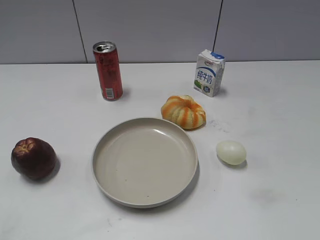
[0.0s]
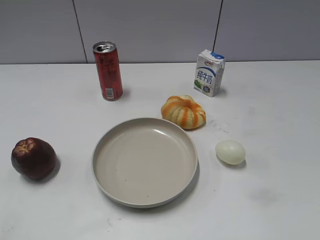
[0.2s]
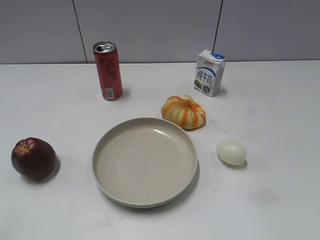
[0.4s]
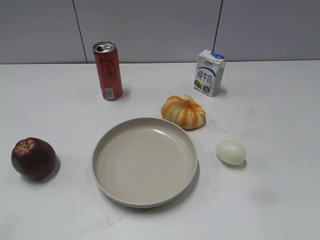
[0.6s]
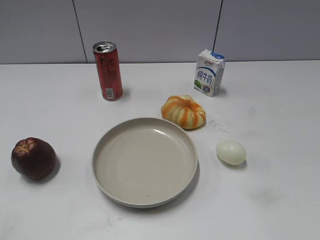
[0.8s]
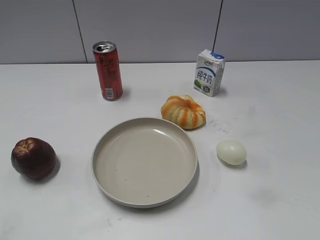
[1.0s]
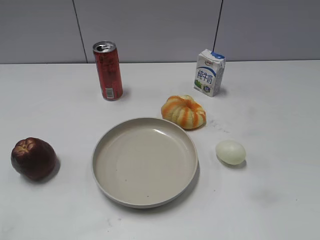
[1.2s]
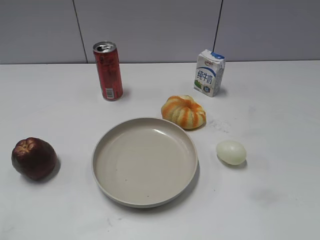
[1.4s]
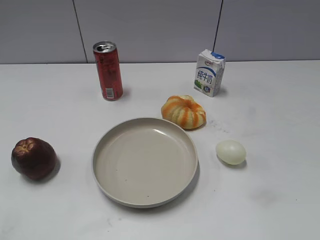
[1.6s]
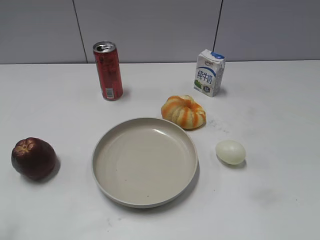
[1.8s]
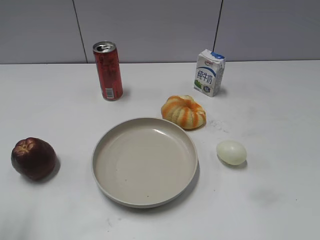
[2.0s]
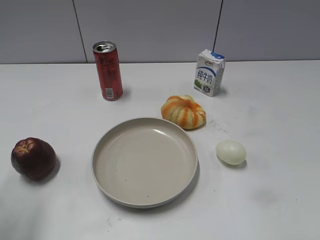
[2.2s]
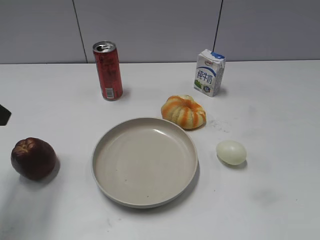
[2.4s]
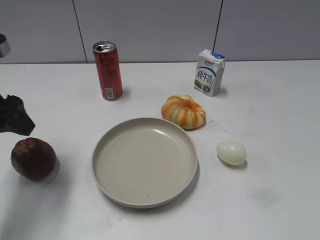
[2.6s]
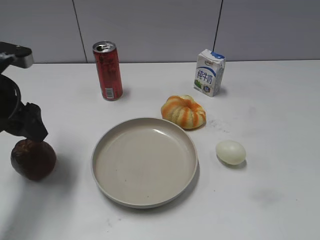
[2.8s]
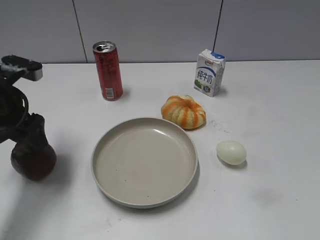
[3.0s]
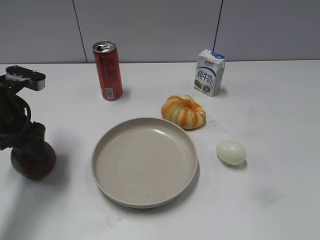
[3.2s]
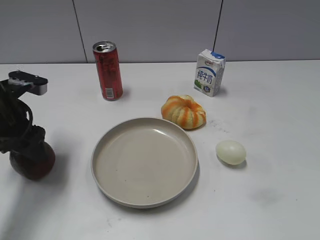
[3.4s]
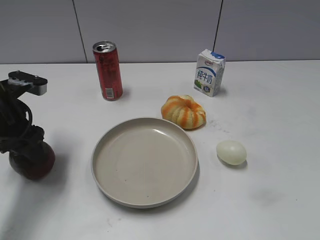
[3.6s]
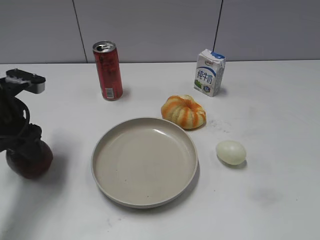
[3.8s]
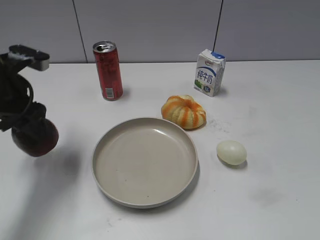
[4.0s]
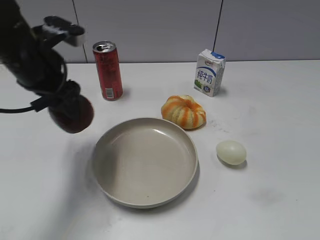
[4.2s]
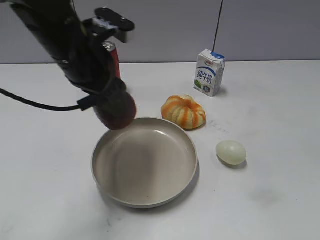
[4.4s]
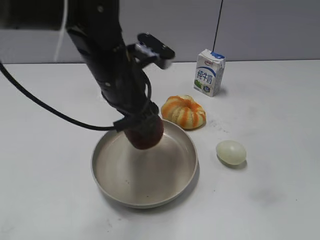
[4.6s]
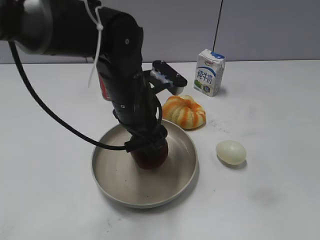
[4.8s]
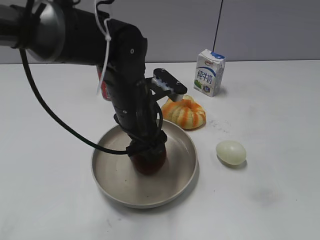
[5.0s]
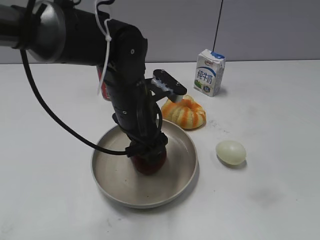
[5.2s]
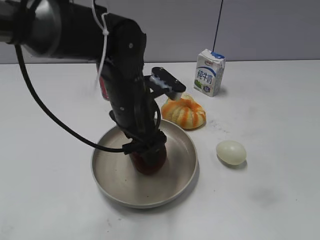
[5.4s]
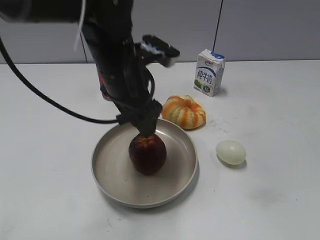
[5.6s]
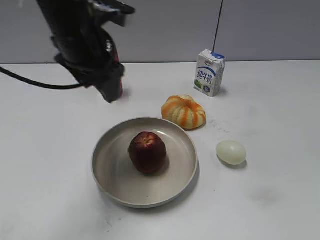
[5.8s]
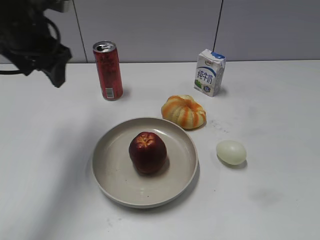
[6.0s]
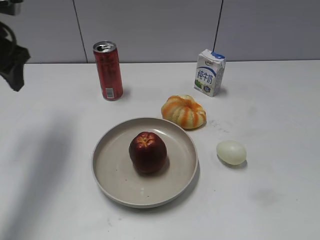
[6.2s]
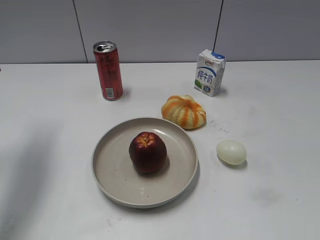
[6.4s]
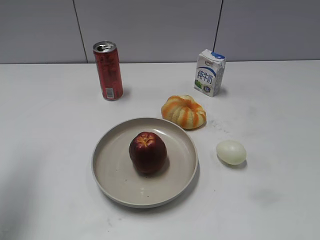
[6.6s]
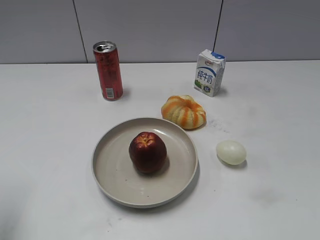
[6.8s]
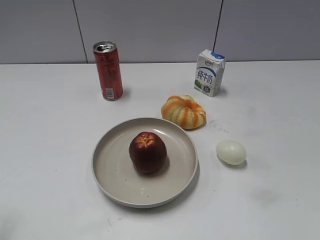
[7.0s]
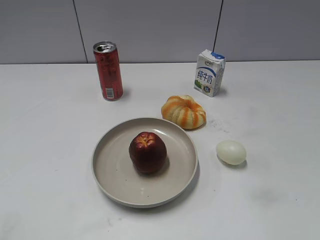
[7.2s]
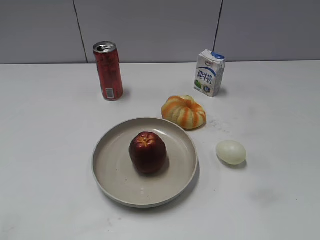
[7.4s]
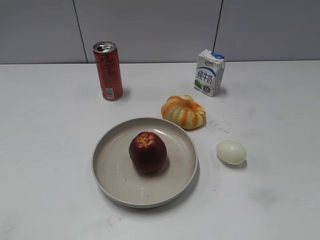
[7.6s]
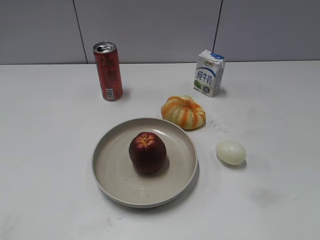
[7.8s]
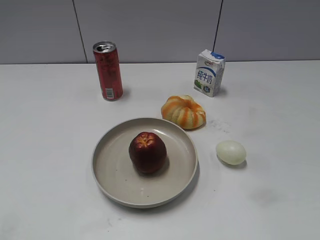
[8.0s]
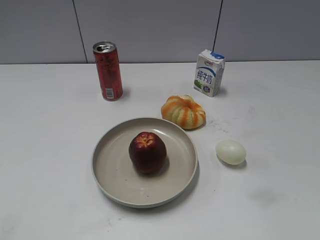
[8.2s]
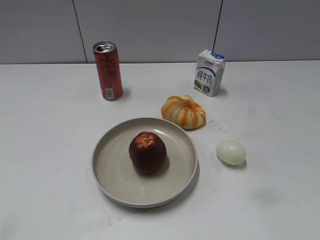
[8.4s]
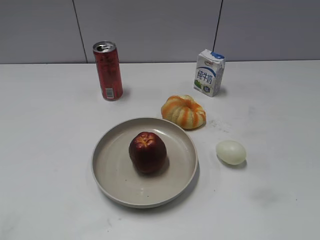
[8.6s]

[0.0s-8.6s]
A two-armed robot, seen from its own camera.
Step, 2.4s to 3.4s: Grasp the apple with left gripper.
Step, 3.6s to 5.6s: Place the apple on the plate with left gripper.
1.4s to 2.8s: The left gripper goes about 30 cm forward, and opens.
2.8s to 4.4s: The left gripper shifts some 15 cm to the right, and closes.
4.4s to 5.8s: The left gripper reaches some 10 cm downward, then returns, and opens its fingers.
5.8s to 7.2s: The left gripper moves backward and to the left, some 35 cm.
